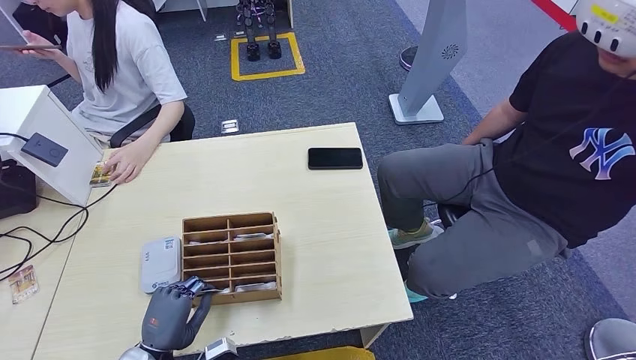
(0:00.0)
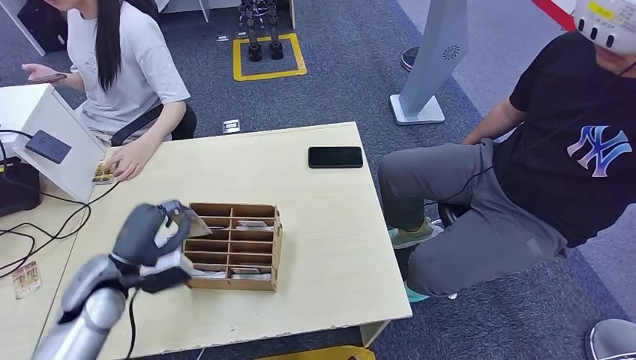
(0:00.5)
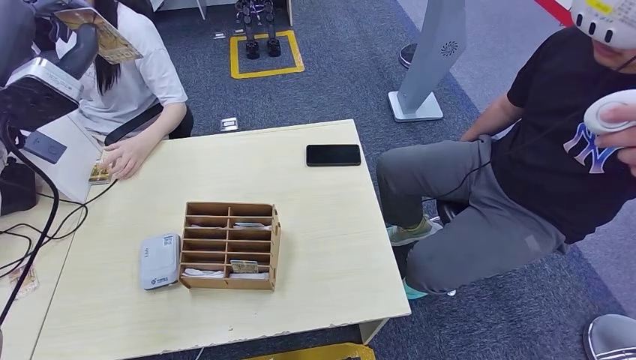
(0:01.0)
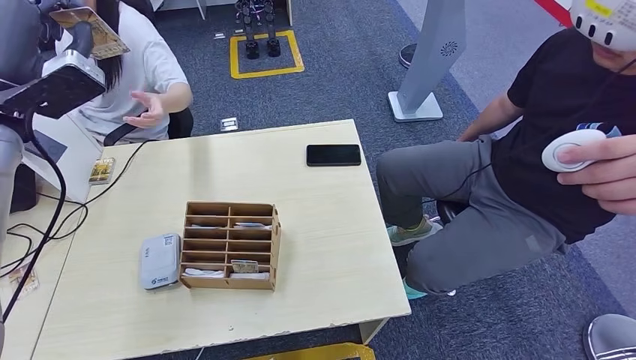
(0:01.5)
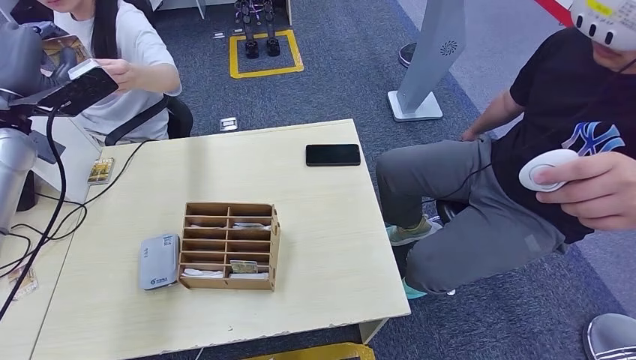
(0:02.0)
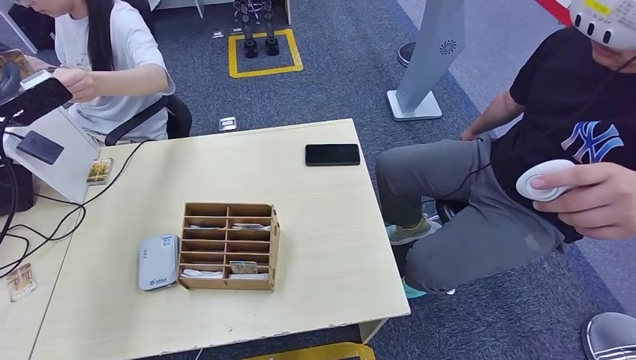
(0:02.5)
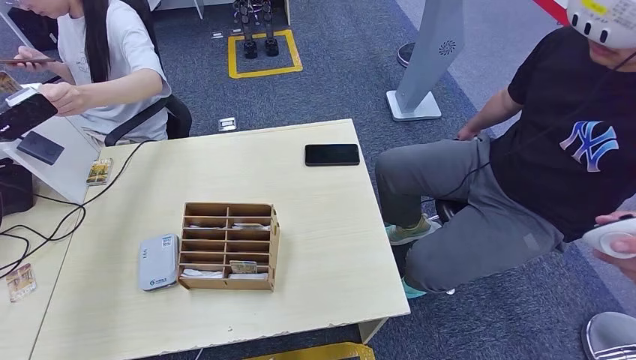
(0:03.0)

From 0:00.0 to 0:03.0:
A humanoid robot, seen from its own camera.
Step, from 0:01.5 to 0:03.0: Hand the room key to the person.
From 0:01.5 to 0:03.0: The left hand moves to the left and downward, some 15 cm. Meanwhile the right hand is displaced to the right by approximately 10 cm.
